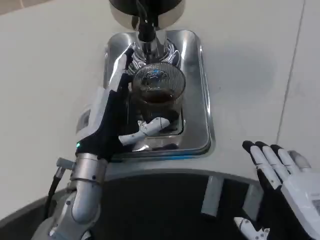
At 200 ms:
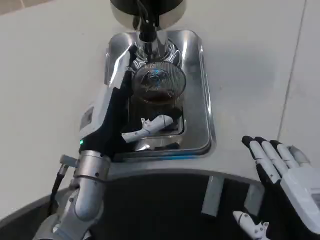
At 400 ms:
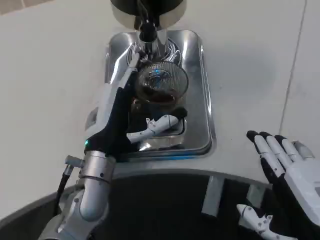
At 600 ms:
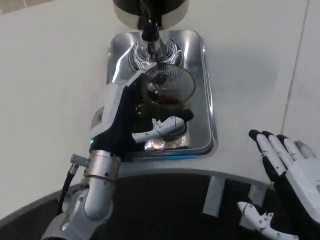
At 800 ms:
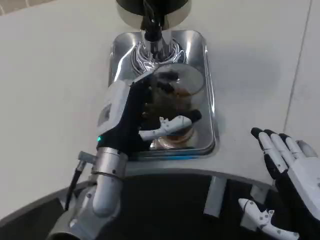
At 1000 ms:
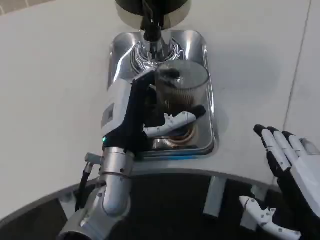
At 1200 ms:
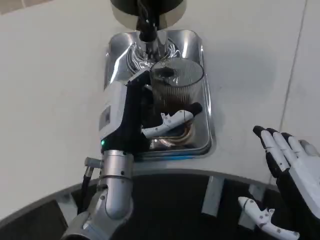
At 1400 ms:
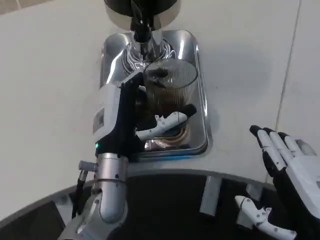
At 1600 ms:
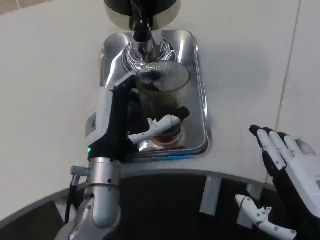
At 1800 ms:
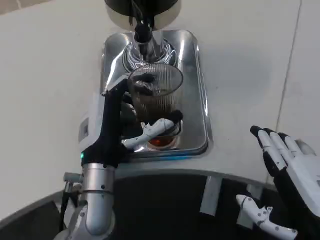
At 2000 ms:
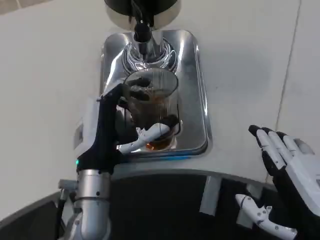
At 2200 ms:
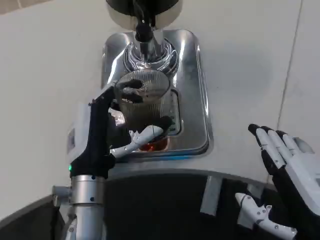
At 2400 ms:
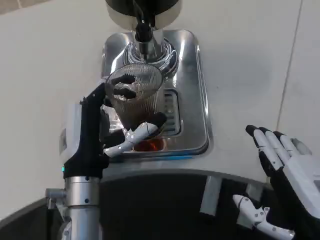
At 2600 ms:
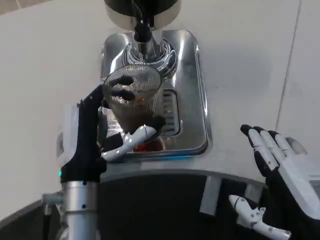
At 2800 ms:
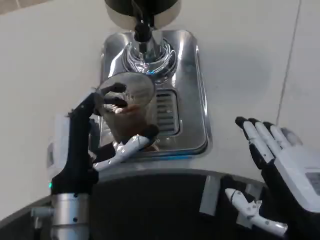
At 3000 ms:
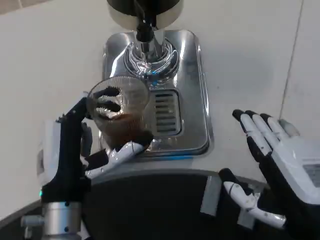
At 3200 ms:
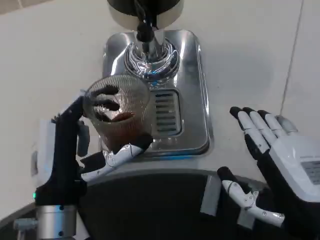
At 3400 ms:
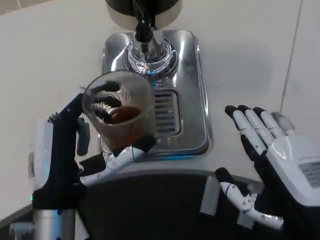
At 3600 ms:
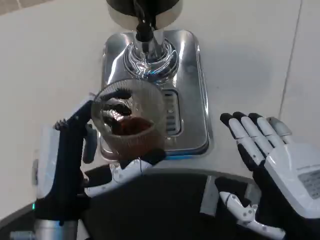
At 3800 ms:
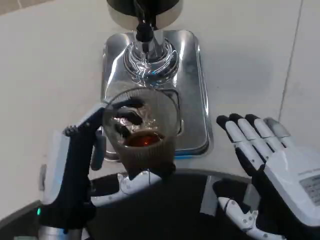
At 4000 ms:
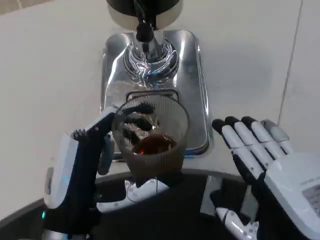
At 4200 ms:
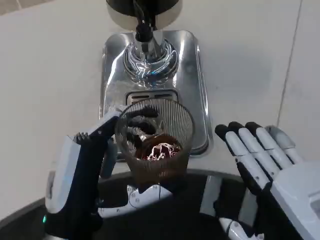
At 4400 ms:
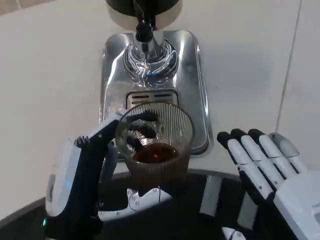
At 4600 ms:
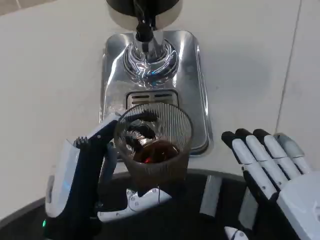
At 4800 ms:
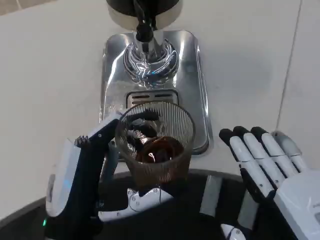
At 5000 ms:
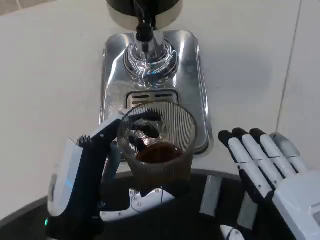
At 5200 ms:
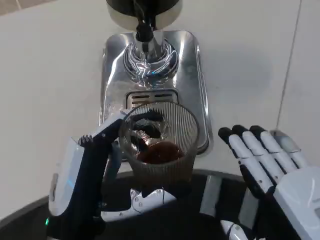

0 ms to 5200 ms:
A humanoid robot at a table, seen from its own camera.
Task of the whole recording: Grasp the cup under the faucet to collect the drink, then remove the cup.
1800 ms to 3400 ms: The left hand heads backward, covering approximately 10 cm.
3400 ms to 5200 ms: The right hand is displaced backward by some 5 cm.

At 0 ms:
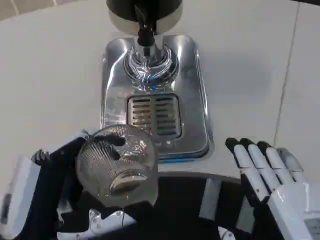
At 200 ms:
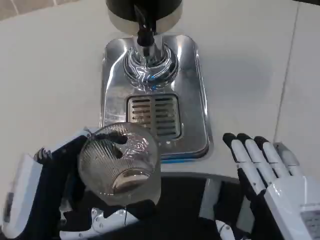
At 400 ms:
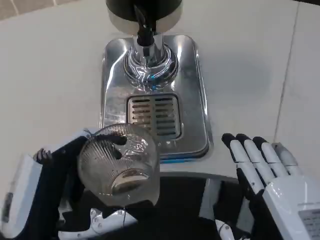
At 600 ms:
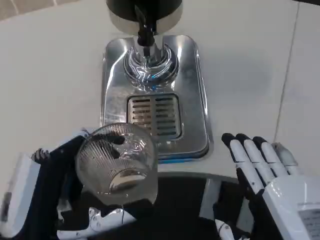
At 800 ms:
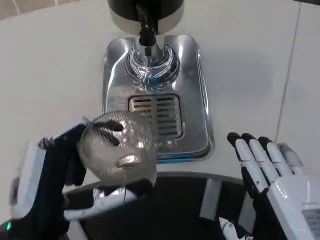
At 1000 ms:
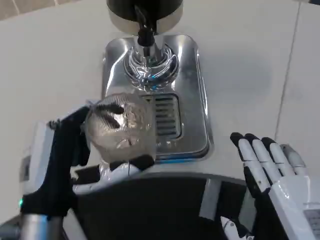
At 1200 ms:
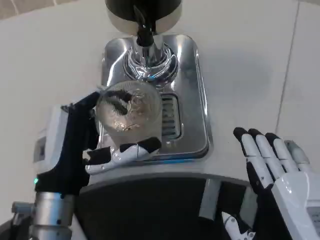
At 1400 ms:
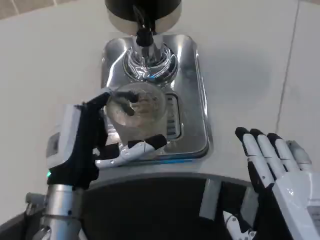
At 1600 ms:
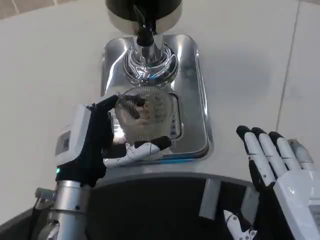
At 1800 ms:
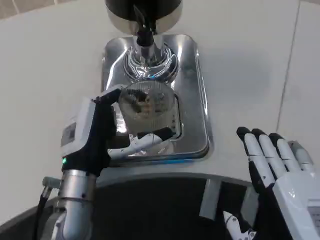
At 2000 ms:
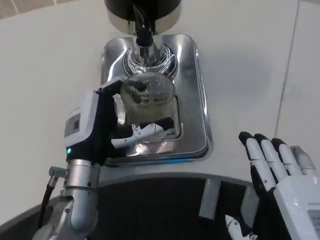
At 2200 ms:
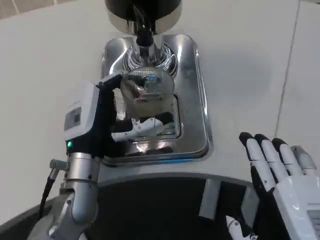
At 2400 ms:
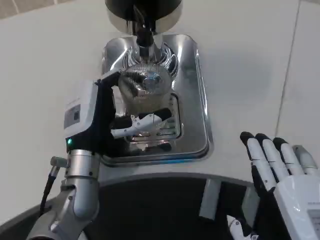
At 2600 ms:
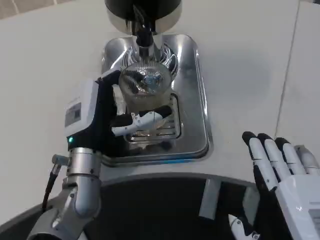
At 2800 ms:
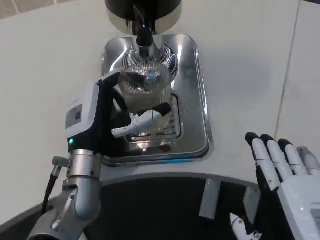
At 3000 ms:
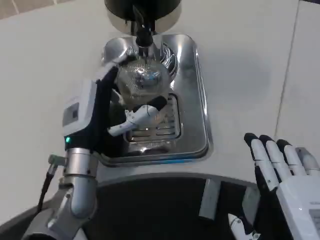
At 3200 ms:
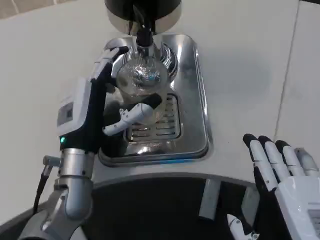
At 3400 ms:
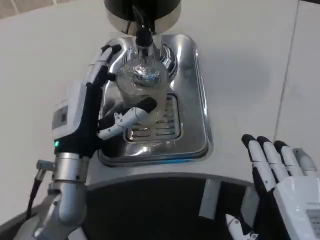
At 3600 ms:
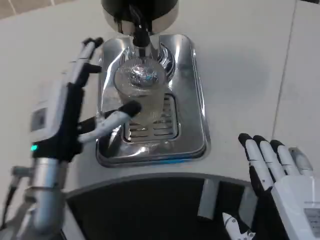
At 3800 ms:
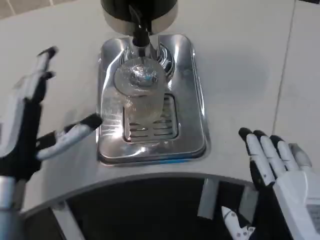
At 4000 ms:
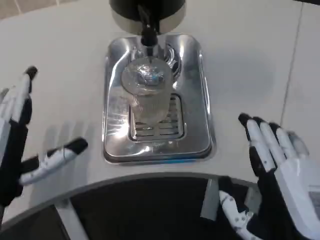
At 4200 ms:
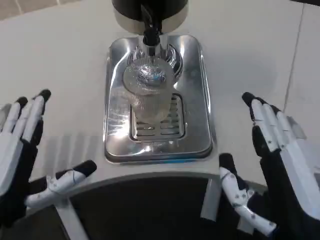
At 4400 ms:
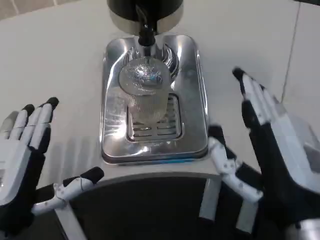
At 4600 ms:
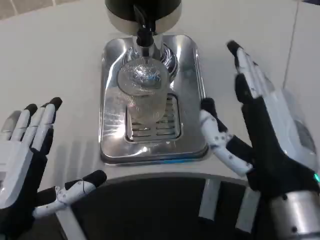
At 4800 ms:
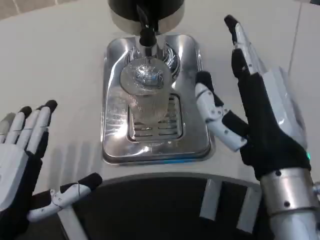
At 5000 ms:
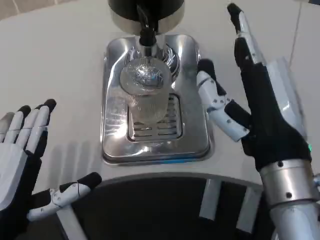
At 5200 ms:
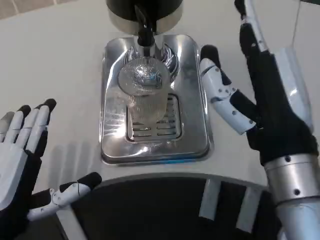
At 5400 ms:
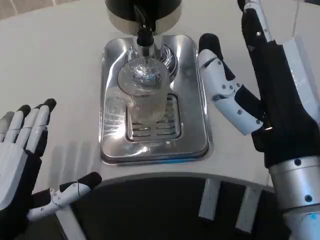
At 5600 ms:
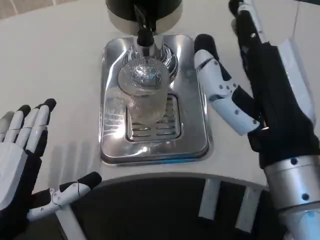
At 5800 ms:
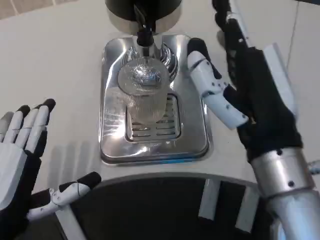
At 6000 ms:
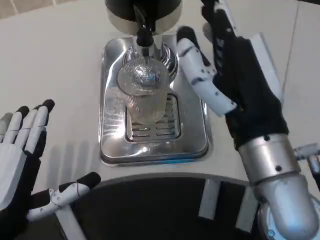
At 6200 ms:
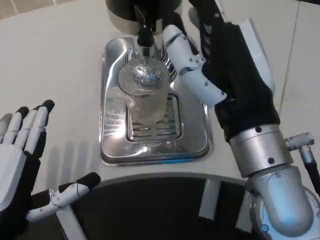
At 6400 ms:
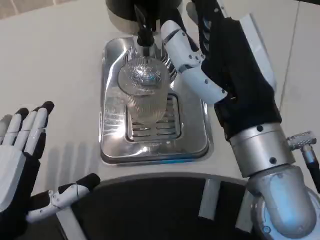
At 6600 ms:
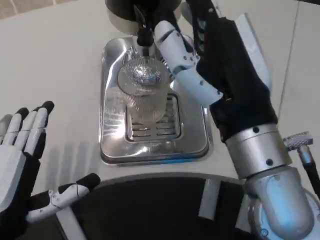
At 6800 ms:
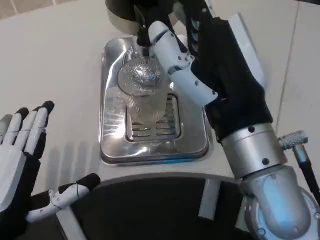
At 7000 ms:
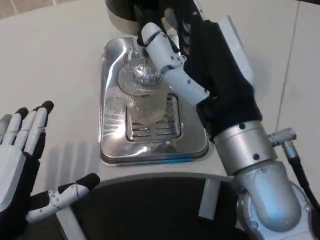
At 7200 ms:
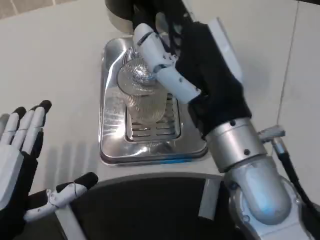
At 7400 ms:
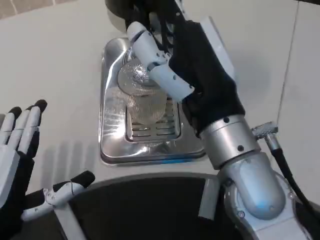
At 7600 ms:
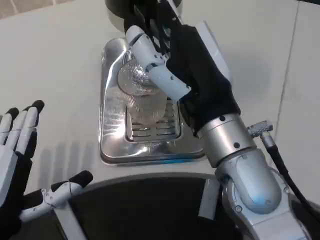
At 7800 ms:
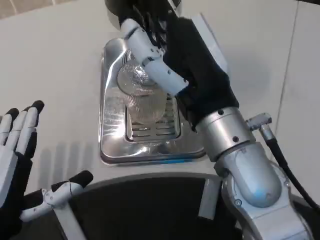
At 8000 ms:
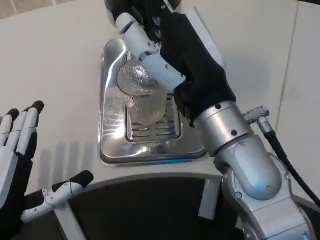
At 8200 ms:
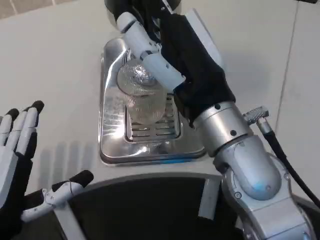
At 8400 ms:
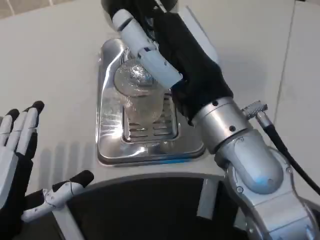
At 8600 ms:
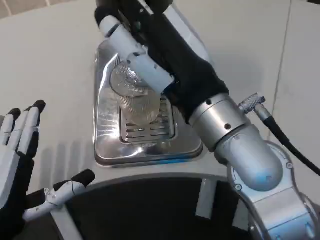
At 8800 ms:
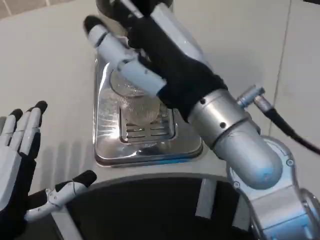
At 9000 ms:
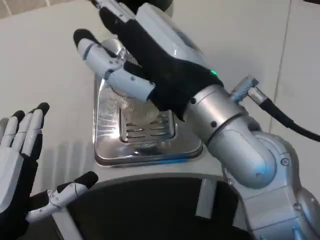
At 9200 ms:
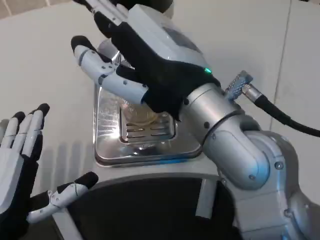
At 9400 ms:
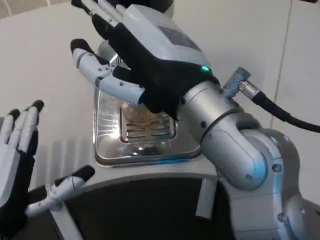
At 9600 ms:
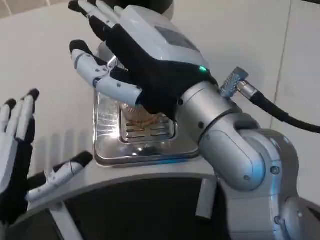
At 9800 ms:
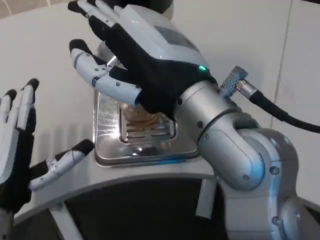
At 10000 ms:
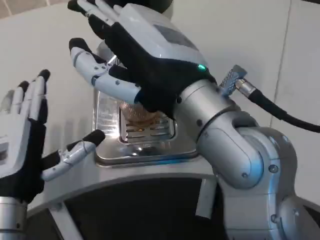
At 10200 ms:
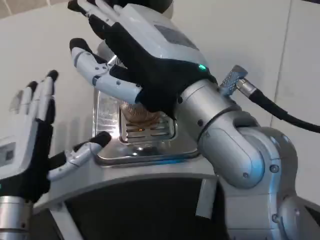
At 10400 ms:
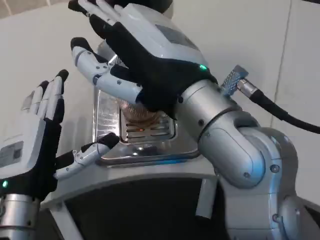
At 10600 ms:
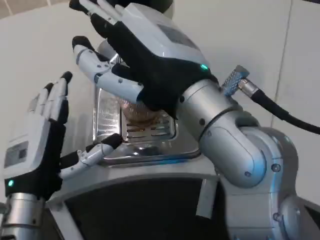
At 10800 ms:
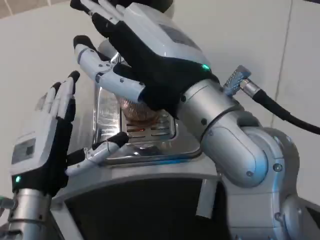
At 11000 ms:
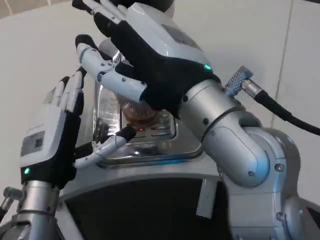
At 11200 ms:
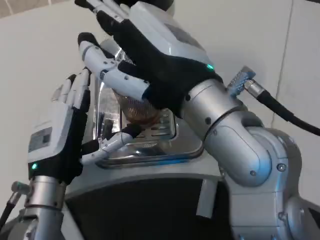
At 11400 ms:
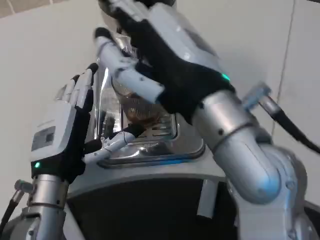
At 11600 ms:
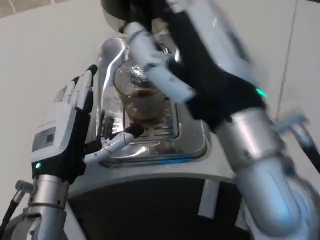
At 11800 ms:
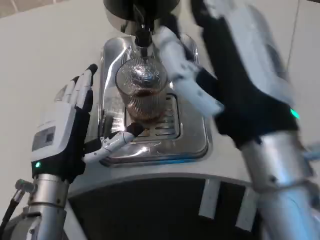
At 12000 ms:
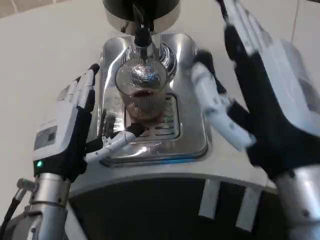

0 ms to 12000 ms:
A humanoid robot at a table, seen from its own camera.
Task of the whole recording: Grasp the cup under the faucet to collect the drink, then remove the cup.
0 ms to 1600 ms: The left hand goes approximately 10 cm forward.
1600 ms to 3000 ms: The left hand travels forward by about 5 cm.
3000 ms to 4400 ms: The right hand heads forward, covering approximately 5 cm. The left hand heads backward and to the left, covering about 15 cm.
4400 ms to 6000 ms: The right hand moves forward, some 5 cm.
9000 ms to 10400 ms: The left hand goes approximately 5 cm forward.
10400 ms to 12000 ms: The right hand shifts about 10 cm to the right, downward and backward.

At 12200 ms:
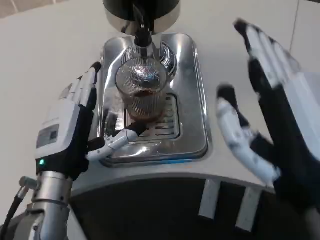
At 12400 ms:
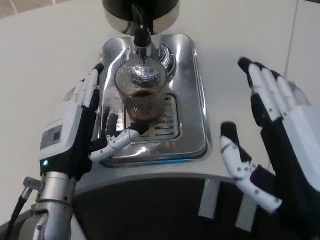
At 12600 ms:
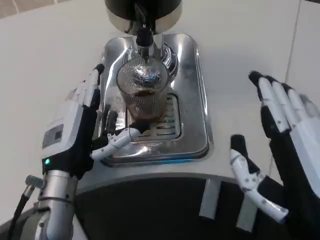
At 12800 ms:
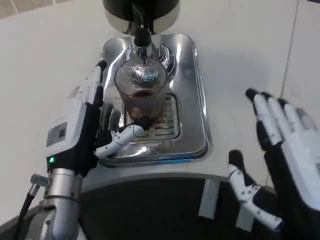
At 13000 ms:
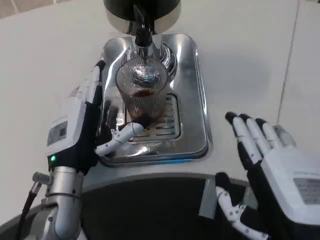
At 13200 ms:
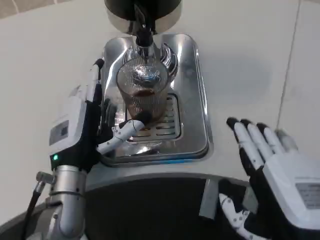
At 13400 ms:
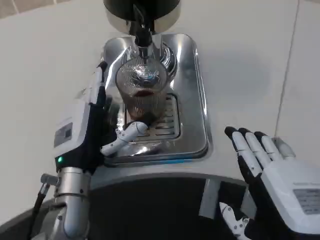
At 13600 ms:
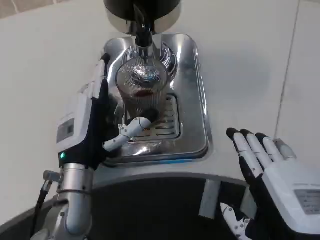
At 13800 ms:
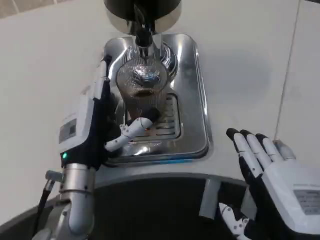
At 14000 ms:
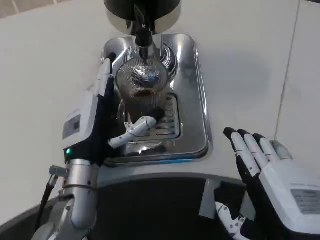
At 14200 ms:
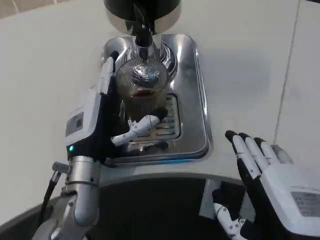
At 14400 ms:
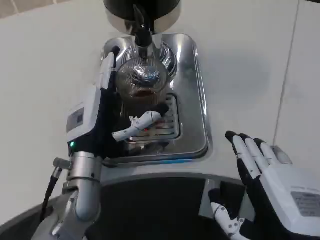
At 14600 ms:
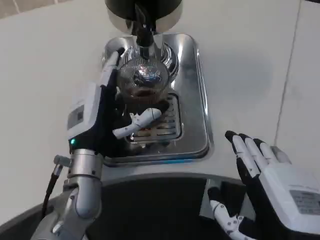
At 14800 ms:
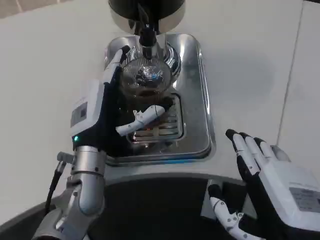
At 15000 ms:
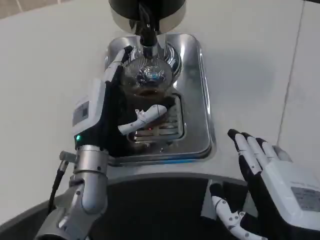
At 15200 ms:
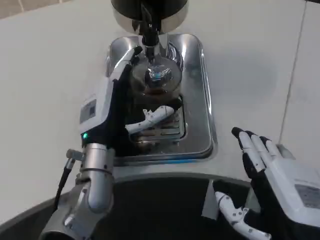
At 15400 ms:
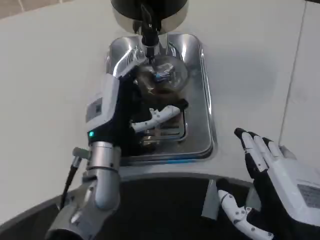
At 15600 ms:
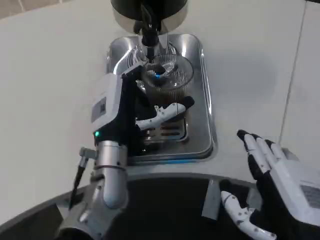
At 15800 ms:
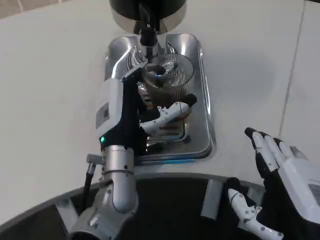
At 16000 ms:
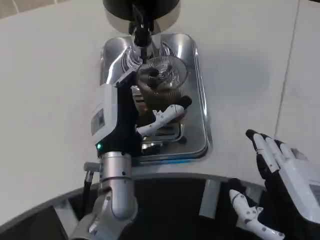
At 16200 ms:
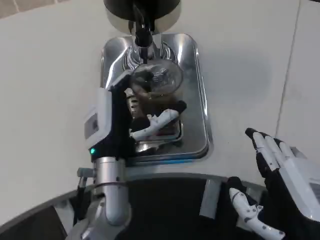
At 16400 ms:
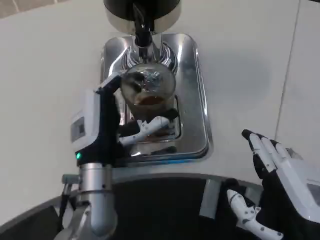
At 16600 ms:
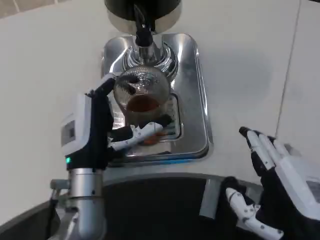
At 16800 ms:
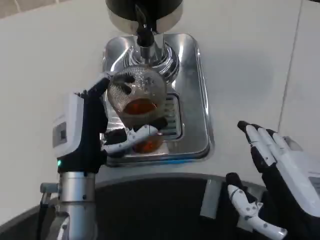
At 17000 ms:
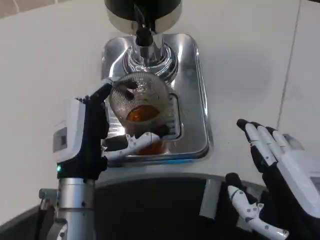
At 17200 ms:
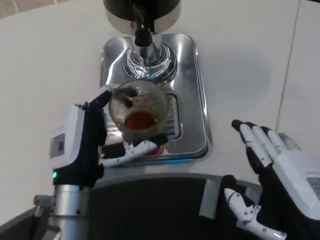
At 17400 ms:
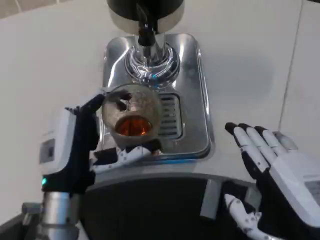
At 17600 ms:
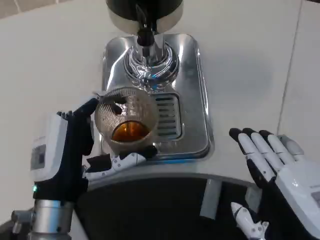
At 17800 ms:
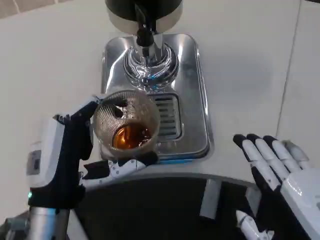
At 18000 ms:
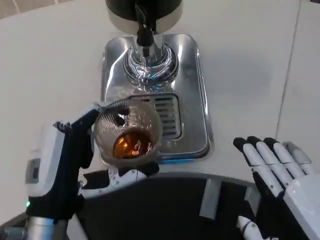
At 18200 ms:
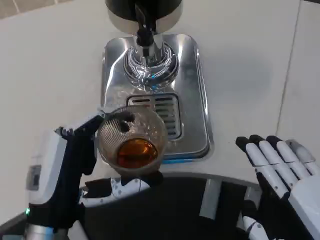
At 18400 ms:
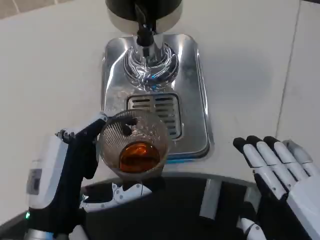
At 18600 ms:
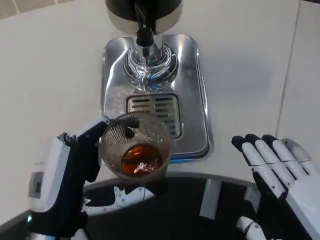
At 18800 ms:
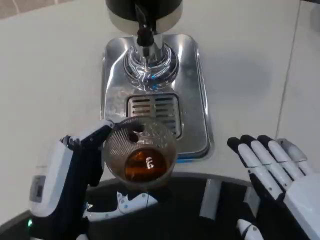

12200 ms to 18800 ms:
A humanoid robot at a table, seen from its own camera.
Task of the whole recording: Grasp the cup under the faucet to collect the drink, then remove the cup.
12200 ms to 13800 ms: The right hand travels downward by some 5 cm.
15400 ms to 17200 ms: The left hand shifts roughly 5 cm backward.
17200 ms to 18800 ms: The left hand is displaced backward by about 10 cm.
